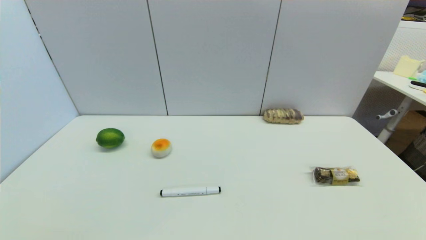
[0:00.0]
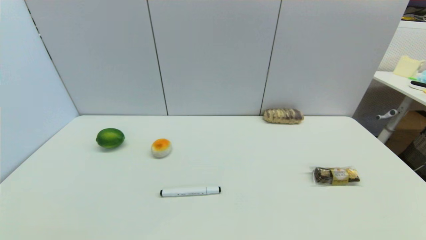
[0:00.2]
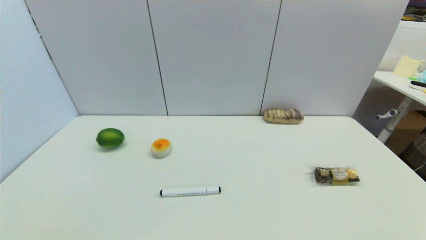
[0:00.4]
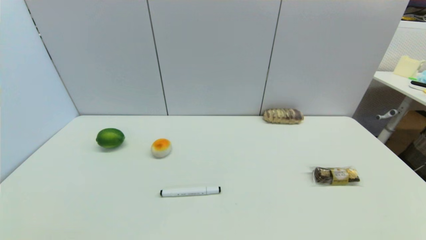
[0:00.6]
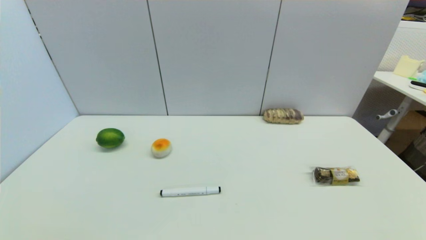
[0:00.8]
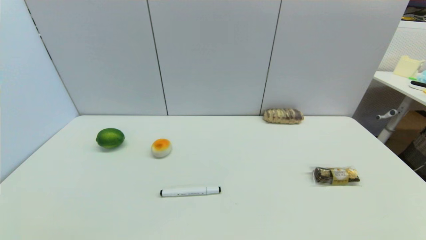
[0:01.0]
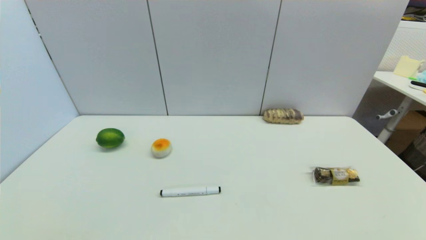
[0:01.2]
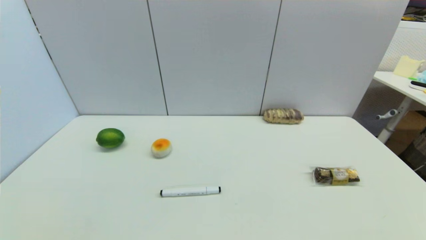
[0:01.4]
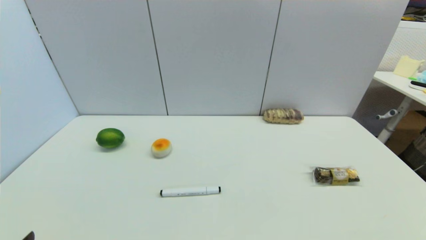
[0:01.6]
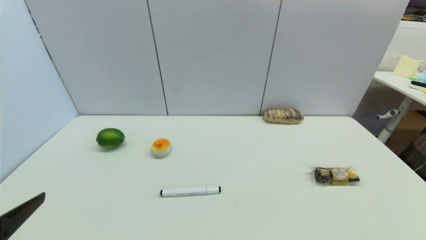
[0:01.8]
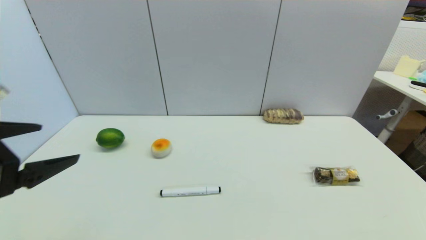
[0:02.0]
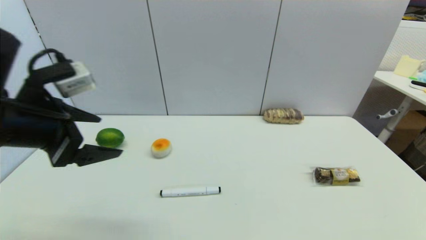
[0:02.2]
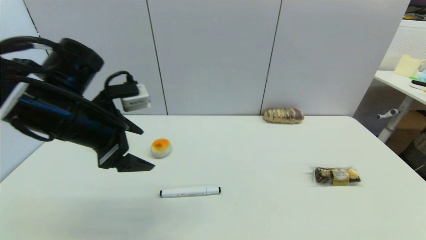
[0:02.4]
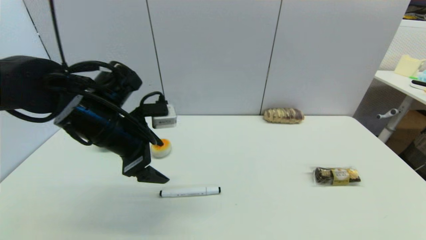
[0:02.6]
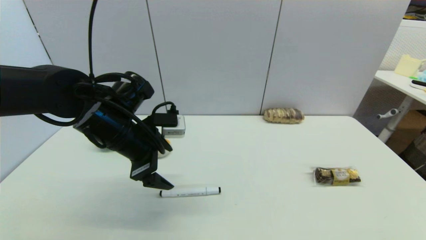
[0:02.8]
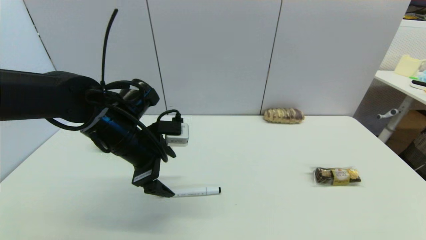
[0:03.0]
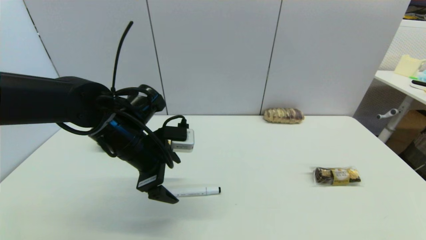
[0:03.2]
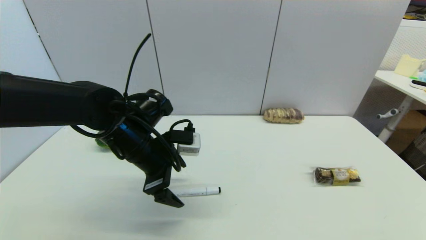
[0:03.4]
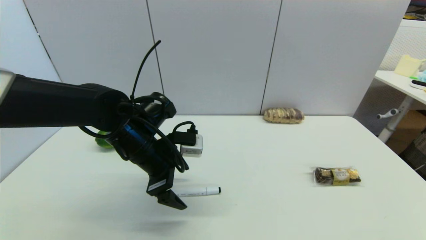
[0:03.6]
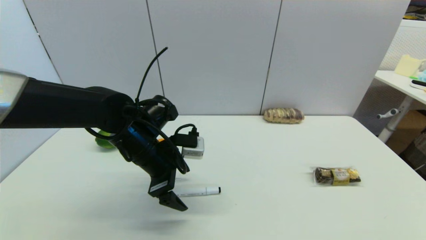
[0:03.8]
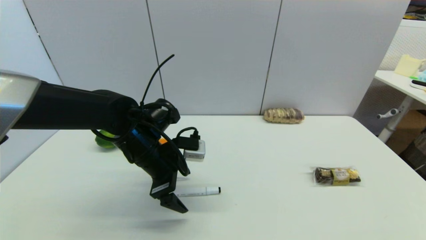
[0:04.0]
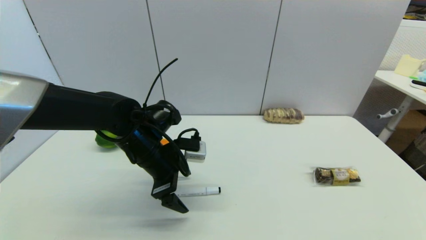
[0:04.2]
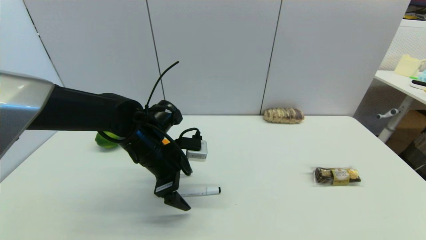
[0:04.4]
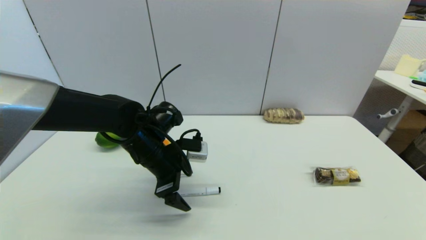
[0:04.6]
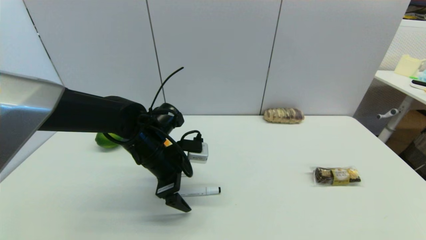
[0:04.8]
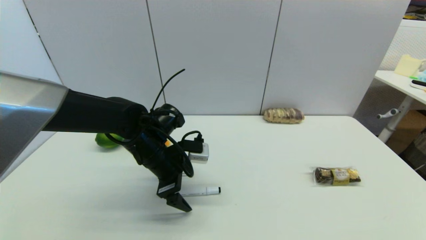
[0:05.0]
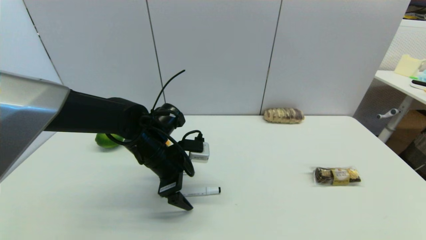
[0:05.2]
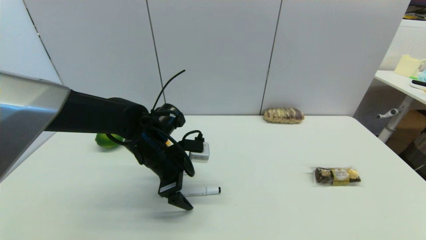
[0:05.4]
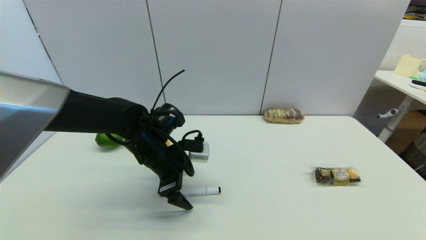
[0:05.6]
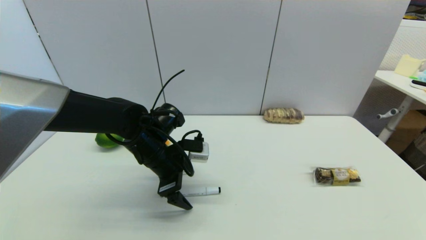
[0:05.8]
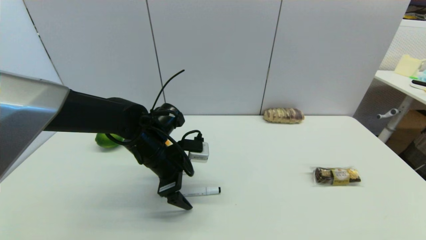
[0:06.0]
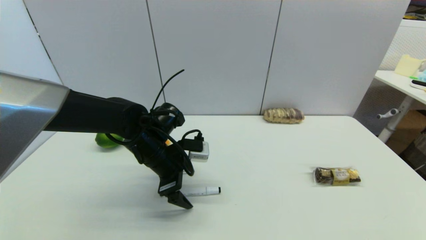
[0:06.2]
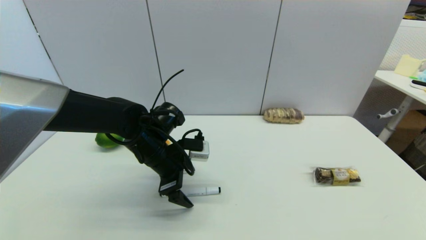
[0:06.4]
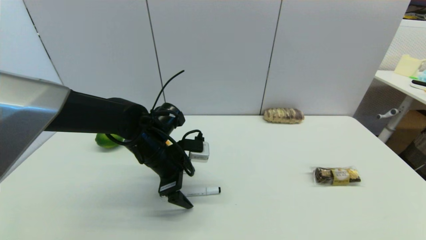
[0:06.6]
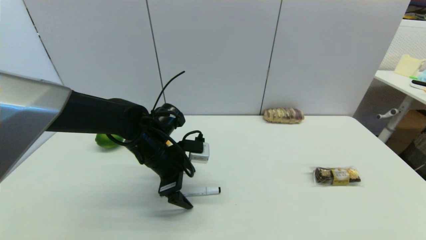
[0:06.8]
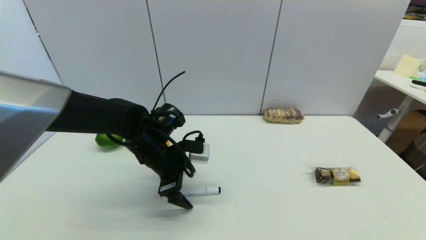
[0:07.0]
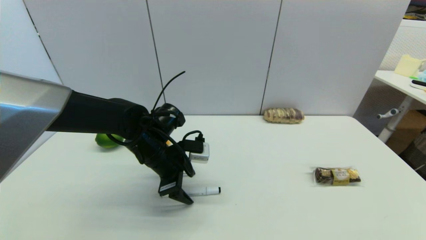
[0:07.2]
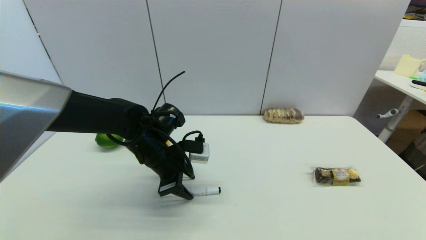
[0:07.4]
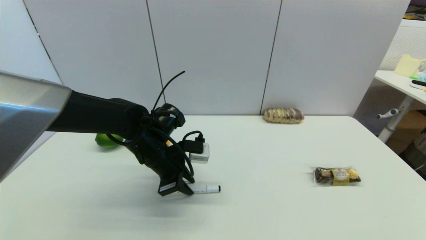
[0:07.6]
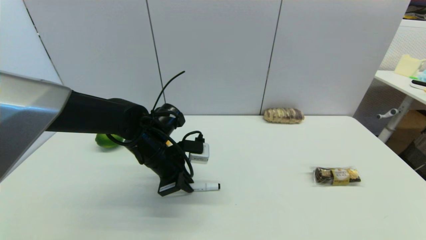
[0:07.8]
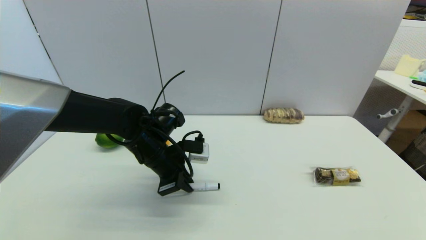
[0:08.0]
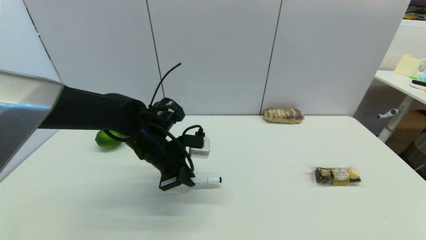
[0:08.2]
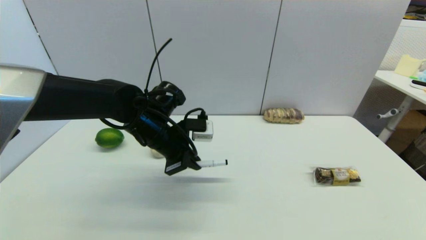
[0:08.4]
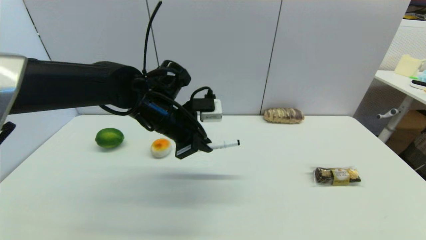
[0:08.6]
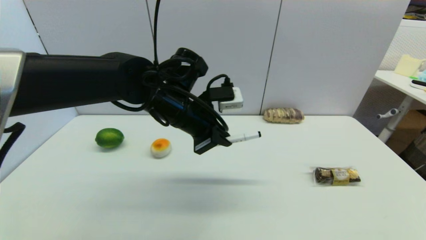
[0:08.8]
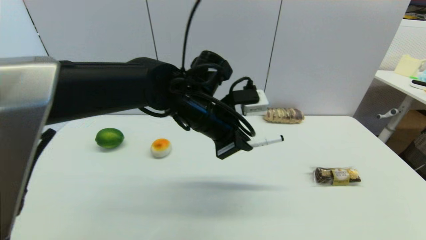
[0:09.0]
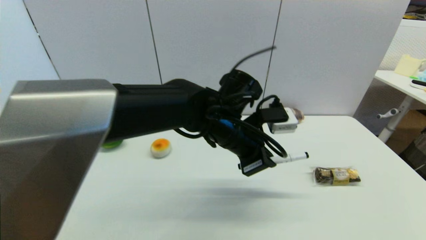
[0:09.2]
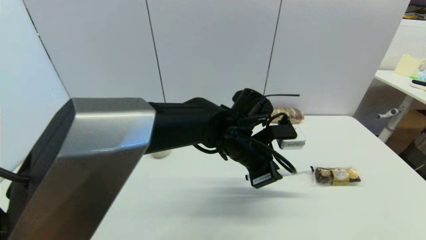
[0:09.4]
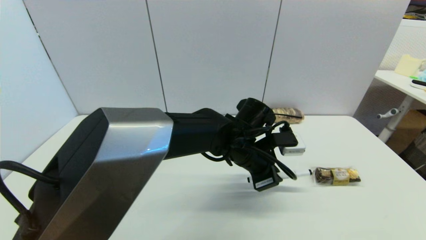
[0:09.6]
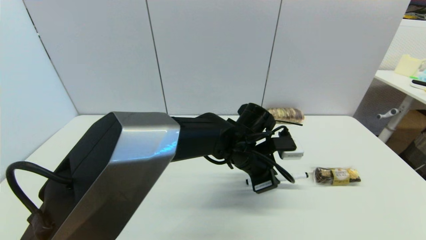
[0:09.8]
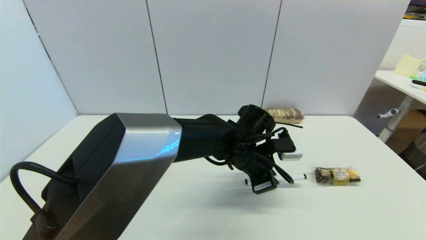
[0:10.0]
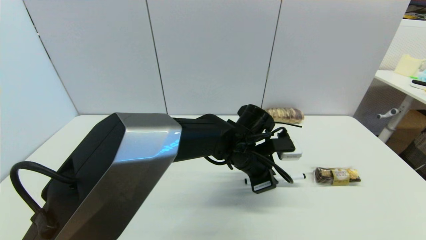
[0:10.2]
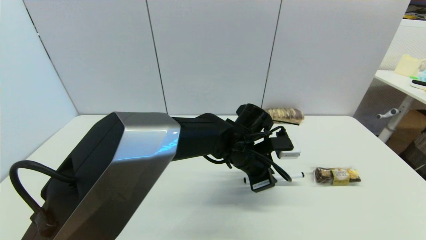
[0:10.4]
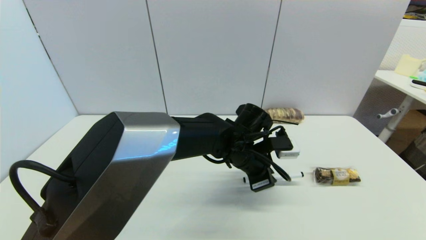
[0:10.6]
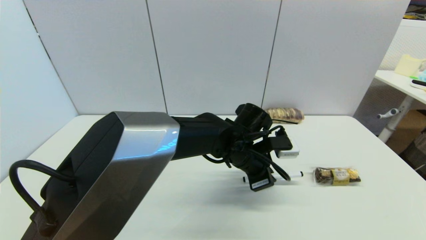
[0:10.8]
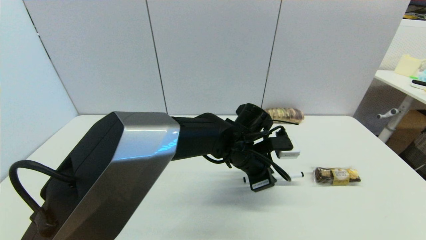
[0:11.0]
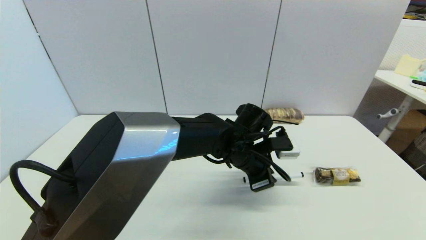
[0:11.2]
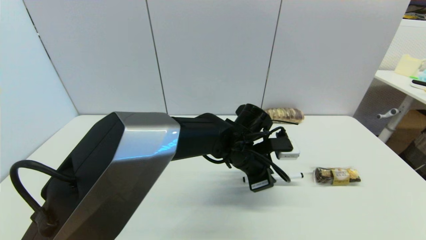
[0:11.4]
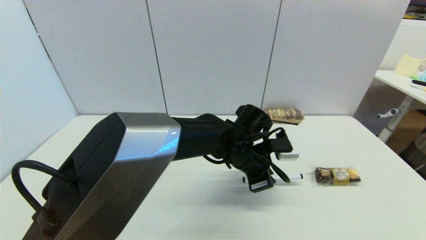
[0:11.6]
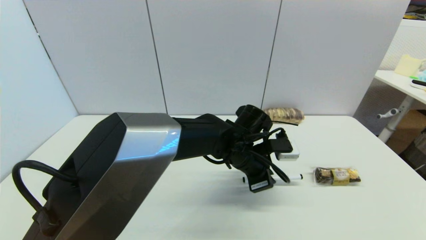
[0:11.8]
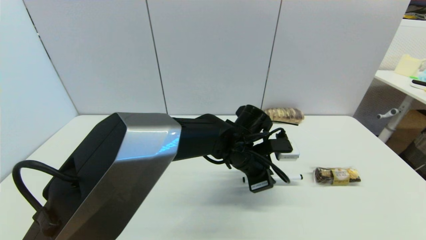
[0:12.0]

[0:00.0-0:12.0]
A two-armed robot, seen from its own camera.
Task of the whole recording: put the black marker in the designated position.
Step, 0:01.8 to 0:07.8: Grasp the Marker pen with left gripper.
0:01.6 to 0:03.0: The left gripper is displaced forward and to the right by roughly 30 cm.
0:03.0 to 0:04.4: The left gripper moves some 5 cm.
0:04.4 to 0:06.0: Both grippers stay about where they are.
0:06.0 to 0:07.6: The left gripper closes.
0:07.6 to 0:09.0: The left gripper goes some 15 cm to the right and upward.
0:09.0 to 0:10.4: The left gripper is displaced downward and to the right by about 15 cm.
0:10.4 to 0:12.0: Neither gripper changes place.

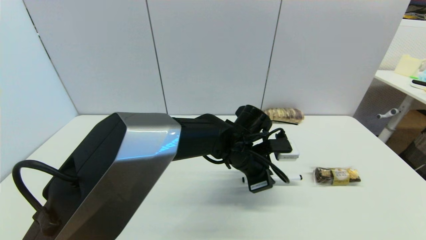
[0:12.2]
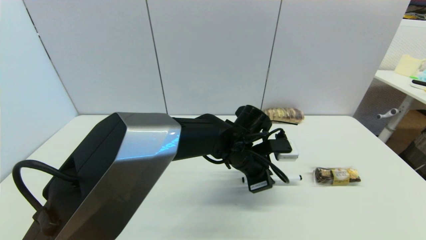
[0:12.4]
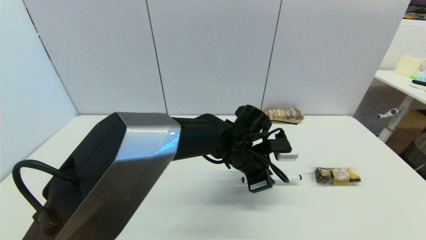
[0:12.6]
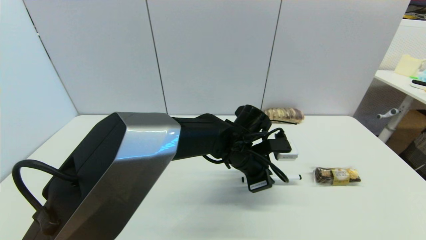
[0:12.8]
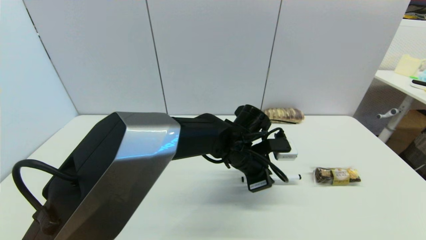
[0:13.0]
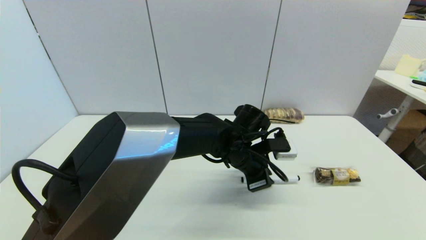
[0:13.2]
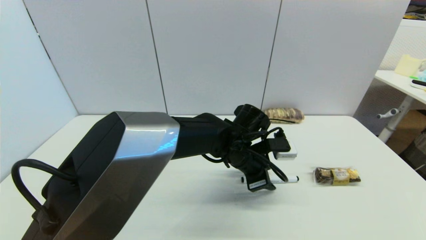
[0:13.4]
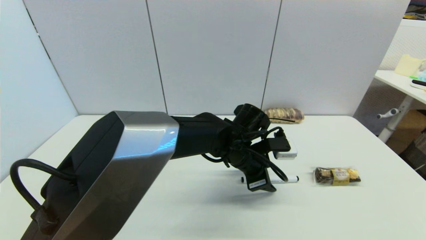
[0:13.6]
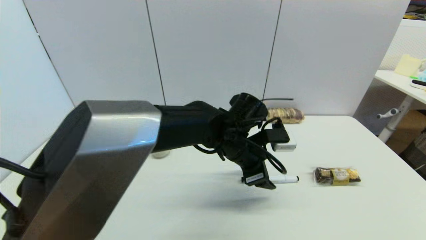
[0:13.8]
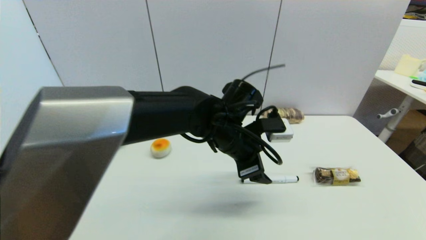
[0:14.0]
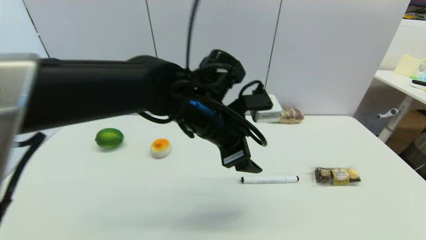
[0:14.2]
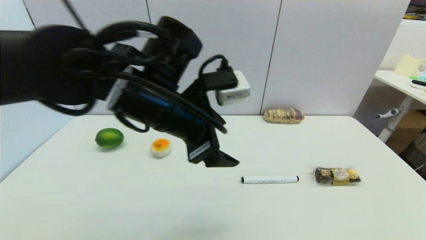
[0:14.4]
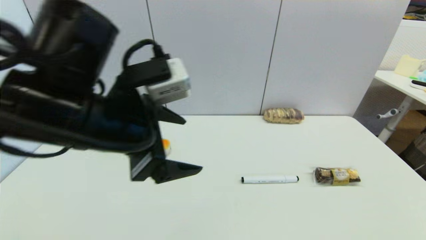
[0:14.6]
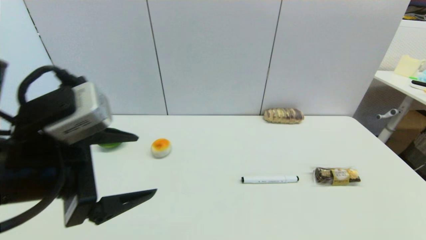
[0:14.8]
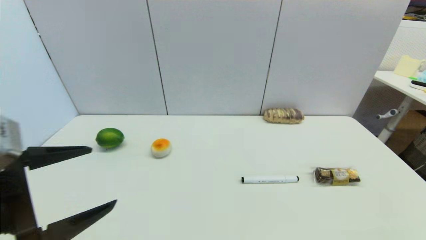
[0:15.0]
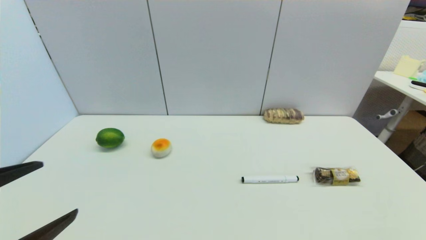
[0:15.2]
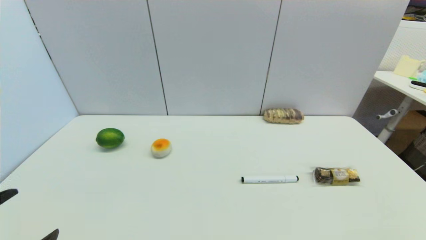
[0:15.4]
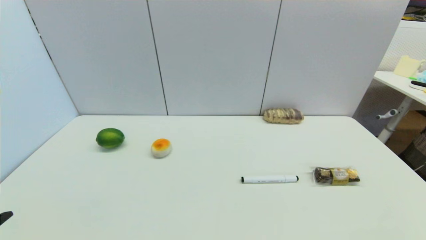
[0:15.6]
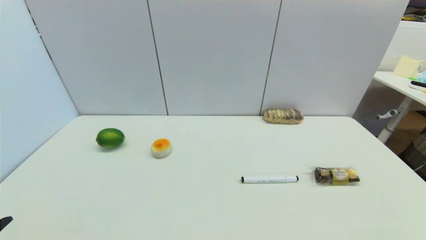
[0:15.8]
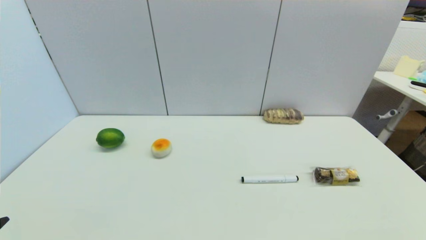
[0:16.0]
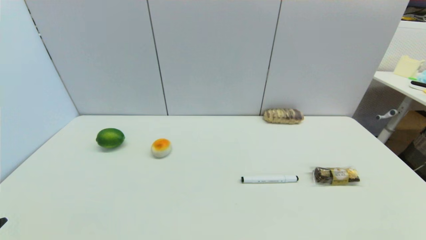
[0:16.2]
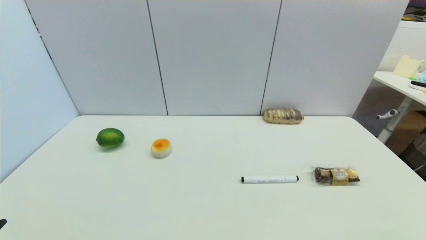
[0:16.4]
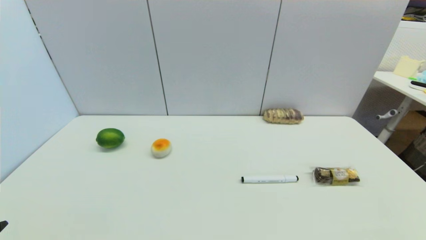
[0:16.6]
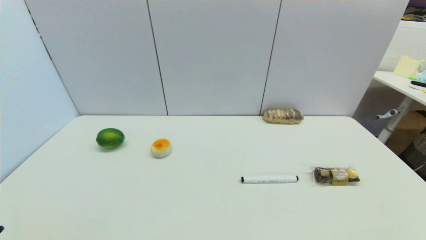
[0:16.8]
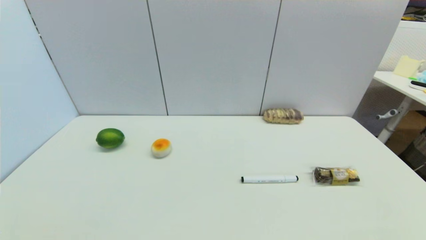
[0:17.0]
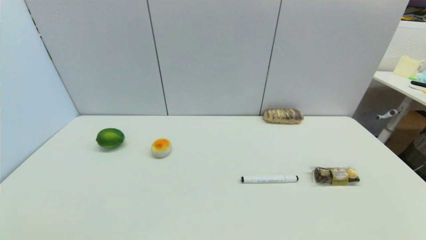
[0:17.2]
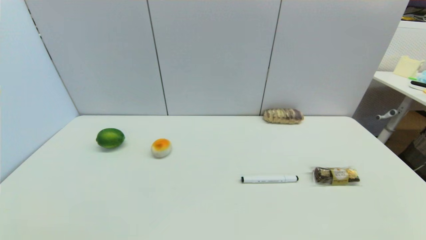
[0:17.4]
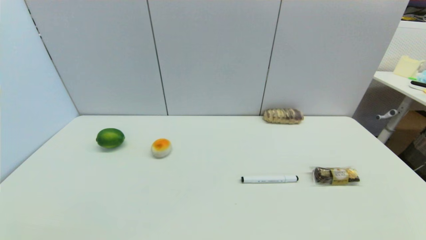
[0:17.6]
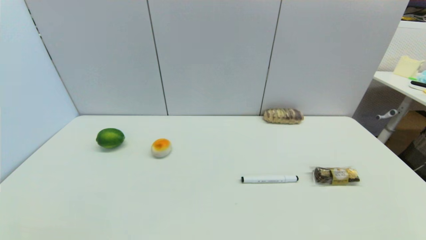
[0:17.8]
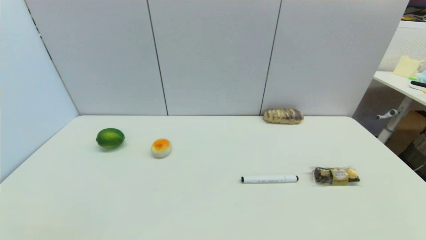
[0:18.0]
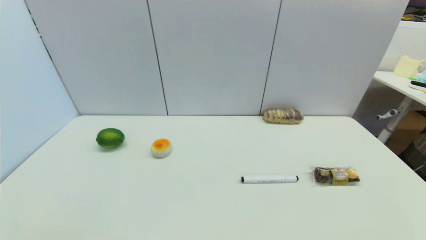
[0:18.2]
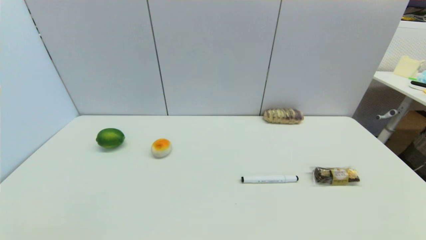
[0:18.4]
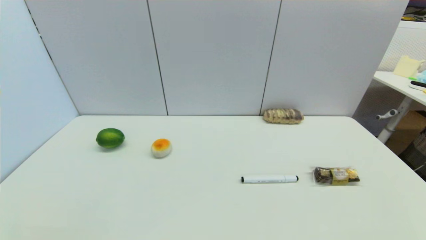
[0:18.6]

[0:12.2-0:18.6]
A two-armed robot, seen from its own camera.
Task of the whole recording: put the black marker in the designated position.
0:12.2 to 0:13.8: The left gripper opens.
0:13.8 to 0:15.4: The left gripper is displaced to the left and backward by about 40 cm.
